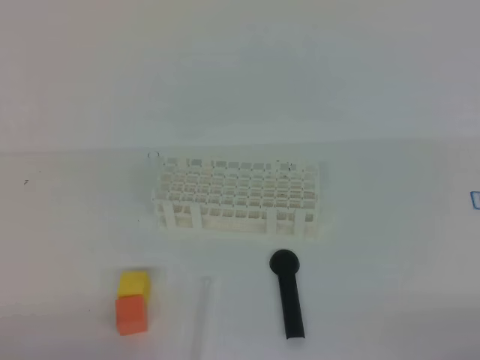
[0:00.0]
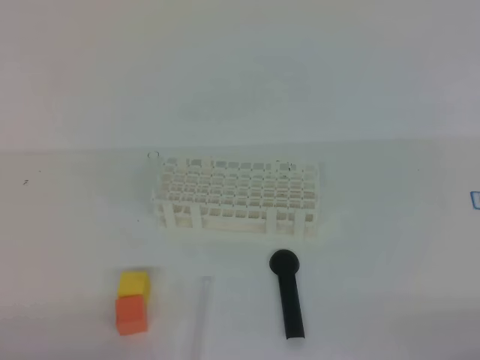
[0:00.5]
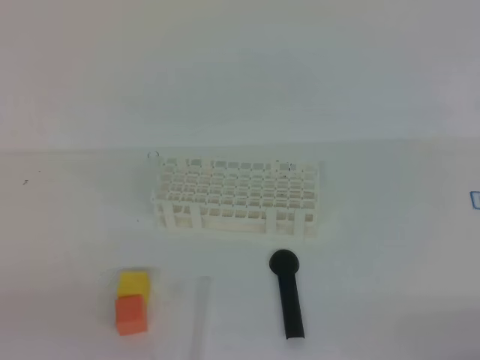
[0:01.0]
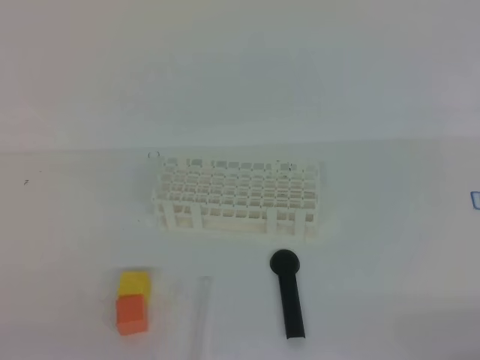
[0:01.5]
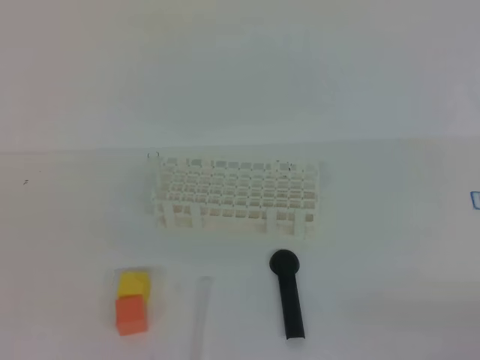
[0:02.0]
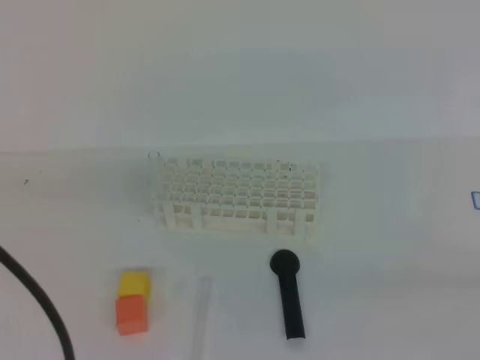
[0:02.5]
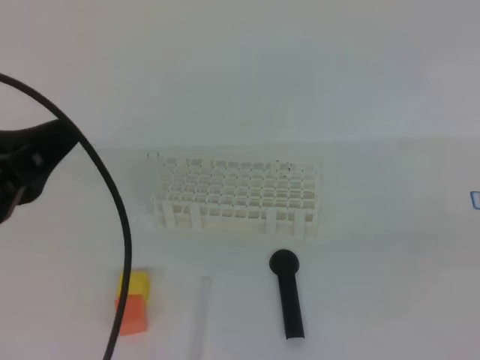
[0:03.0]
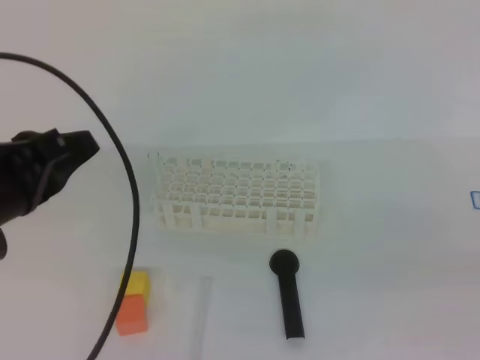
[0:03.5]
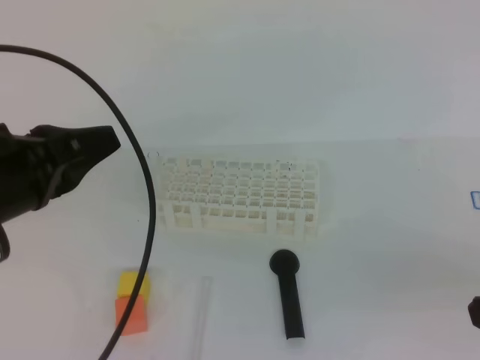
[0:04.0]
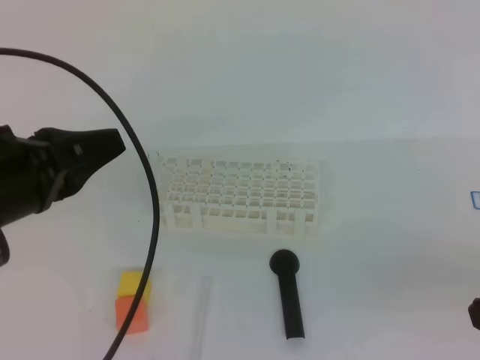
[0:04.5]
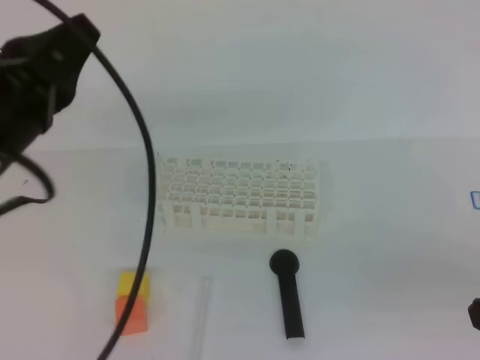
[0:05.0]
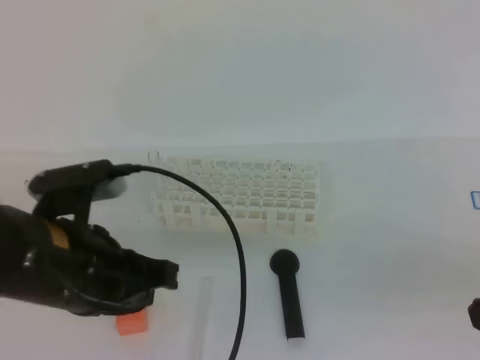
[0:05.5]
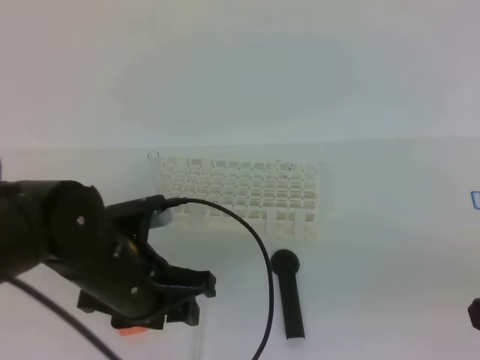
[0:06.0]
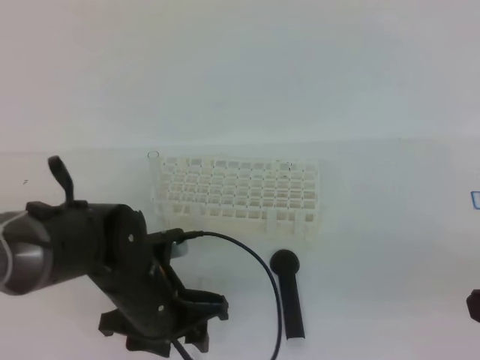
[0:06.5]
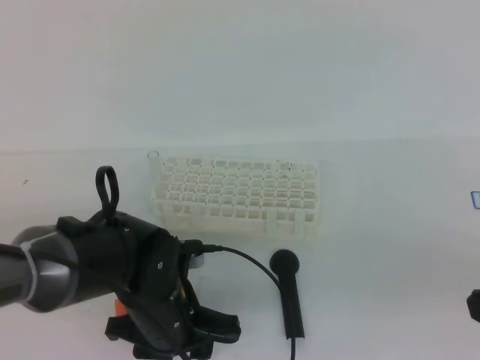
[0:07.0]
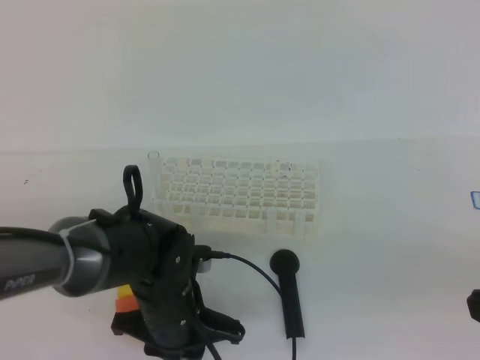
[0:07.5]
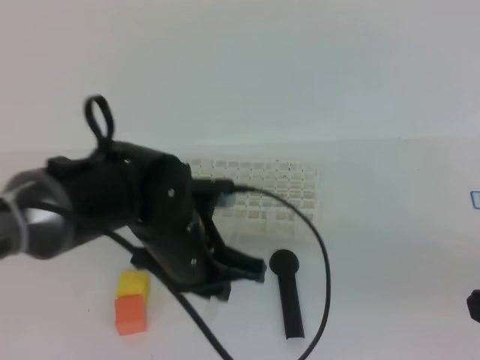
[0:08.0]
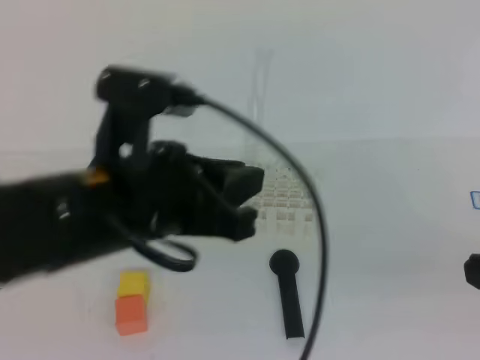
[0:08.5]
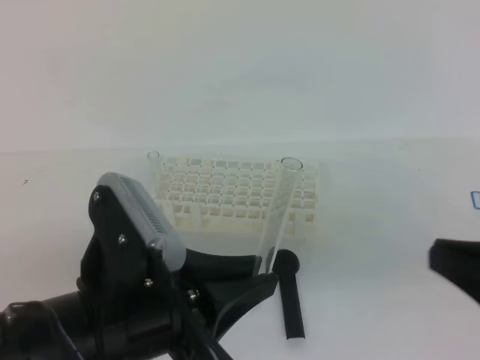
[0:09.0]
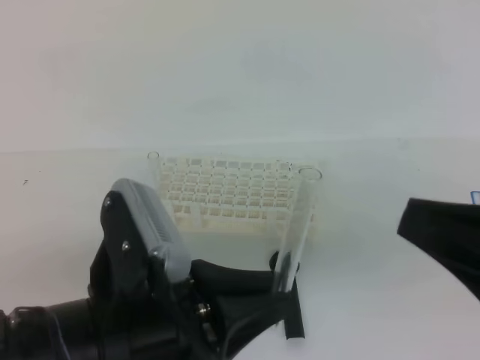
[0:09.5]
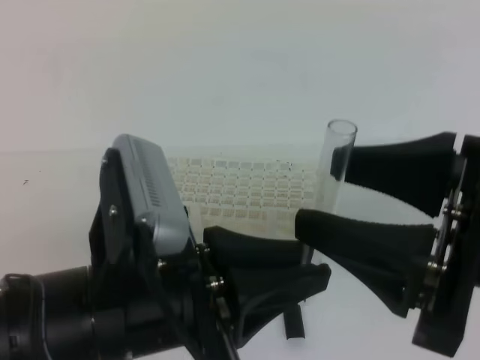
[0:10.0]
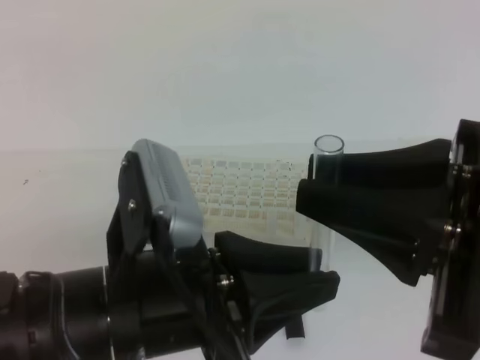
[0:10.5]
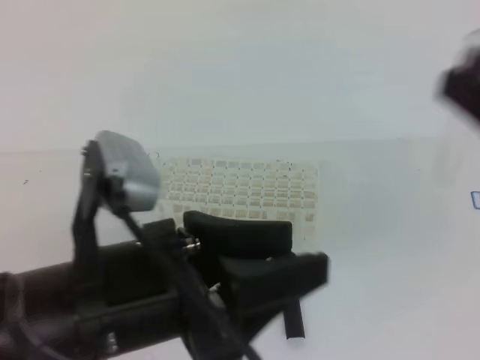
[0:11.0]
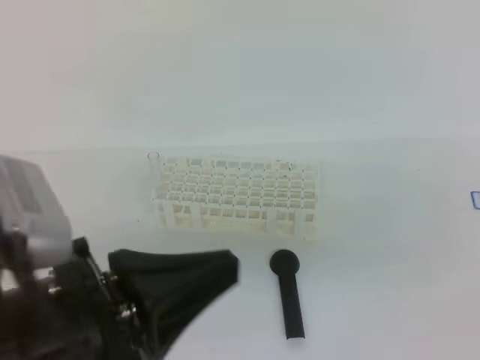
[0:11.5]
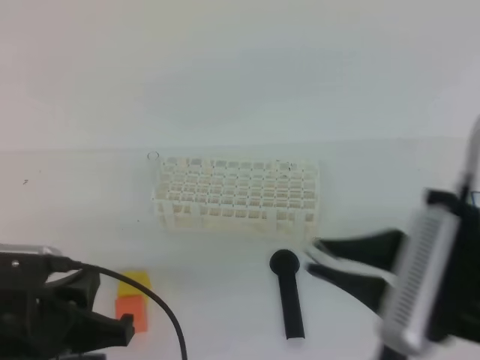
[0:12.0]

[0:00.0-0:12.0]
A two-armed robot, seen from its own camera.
0:02.0 to 0:04.0: The left gripper travels forward by approximately 15 cm, while the right gripper is displaced upward and to the left by some 15 cm.
0:04.0 to 0:06.0: The left gripper goes roughly 15 cm downward and to the right, and opens.
0:06.0 to 0:08.0: The left gripper shifts about 5 cm to the right, travels downward and back again, some 10 cm each way, and closes.
0:08.0 to 0:10.0: The left gripper moves backward and upward, roughly 15 cm, while the right gripper moves to the left and upward, approximately 10 cm, and opens its fingers.
0:10.0 to 0:12.0: The left gripper is displaced to the left and downward by some 10 cm, and opens, then closes again. Meanwhile the right gripper heads downward, covering roughly 5 cm, and closes up.

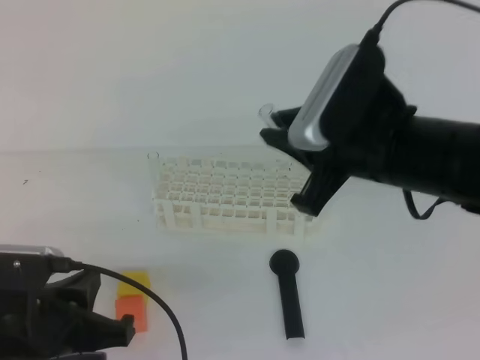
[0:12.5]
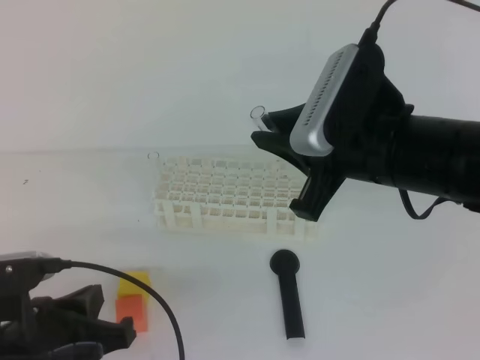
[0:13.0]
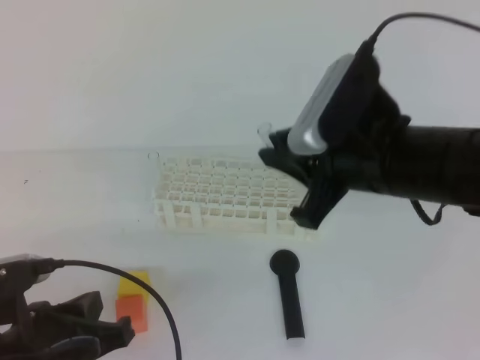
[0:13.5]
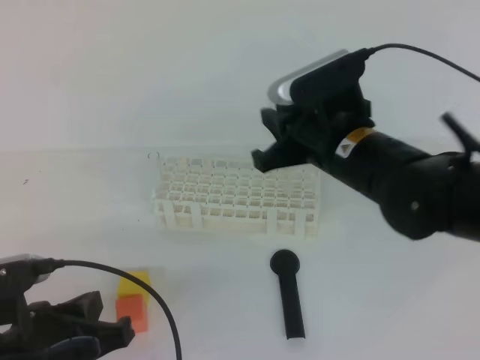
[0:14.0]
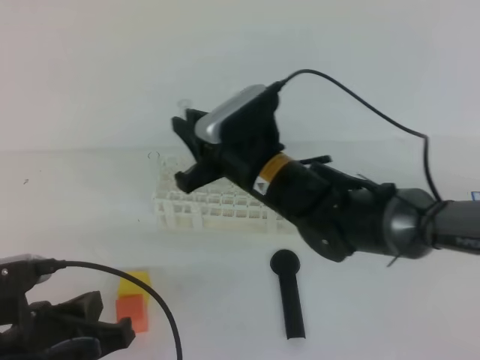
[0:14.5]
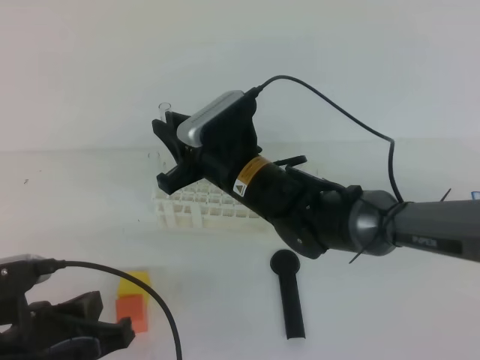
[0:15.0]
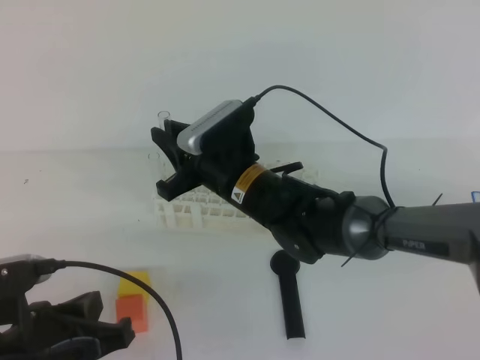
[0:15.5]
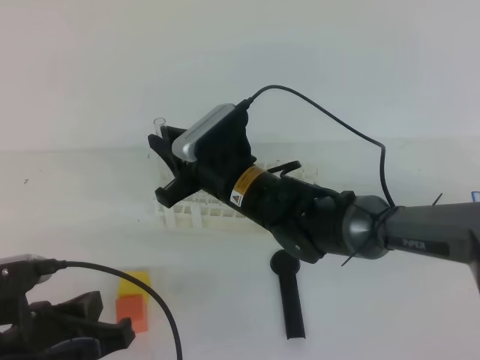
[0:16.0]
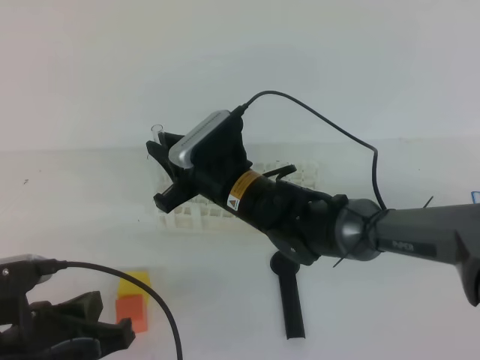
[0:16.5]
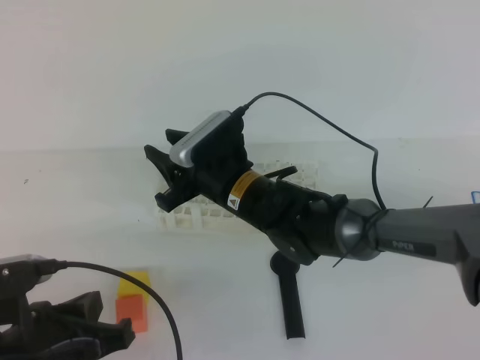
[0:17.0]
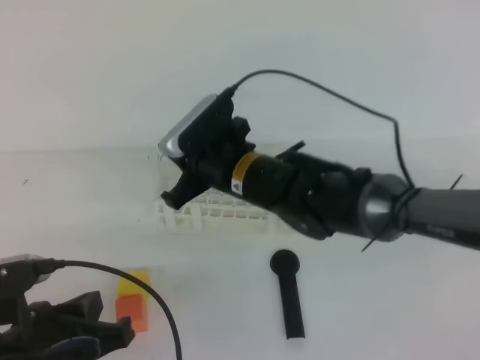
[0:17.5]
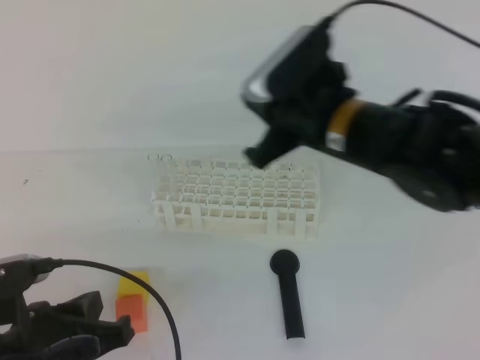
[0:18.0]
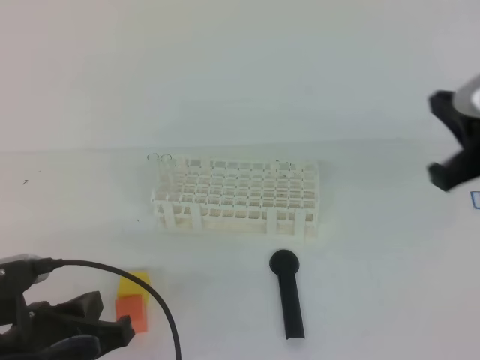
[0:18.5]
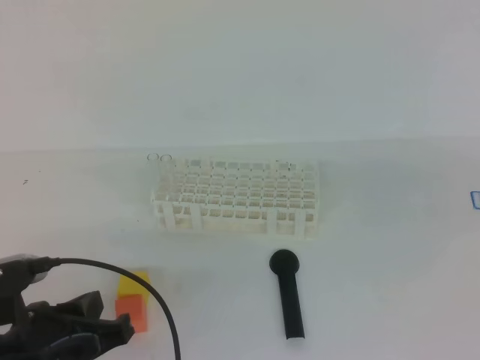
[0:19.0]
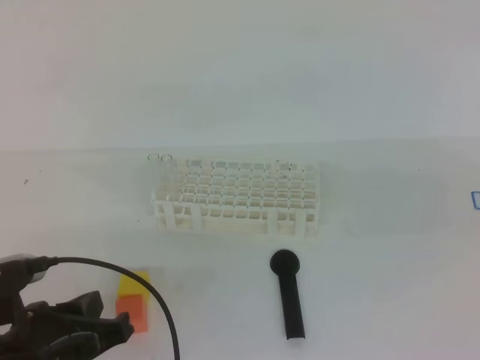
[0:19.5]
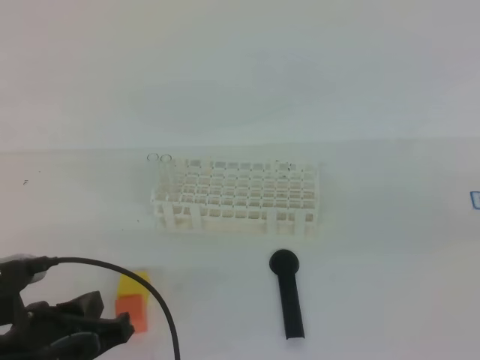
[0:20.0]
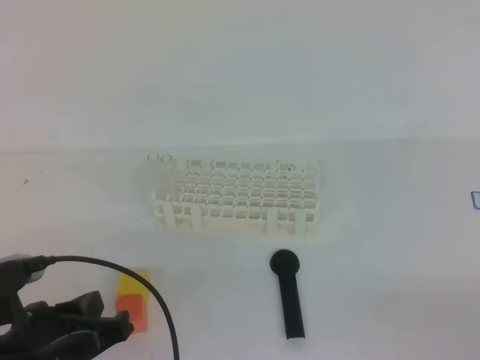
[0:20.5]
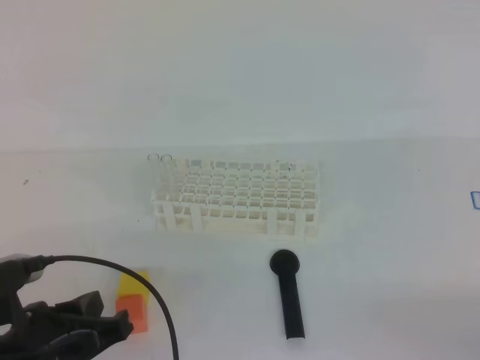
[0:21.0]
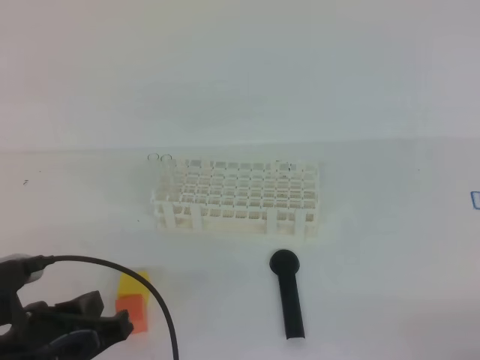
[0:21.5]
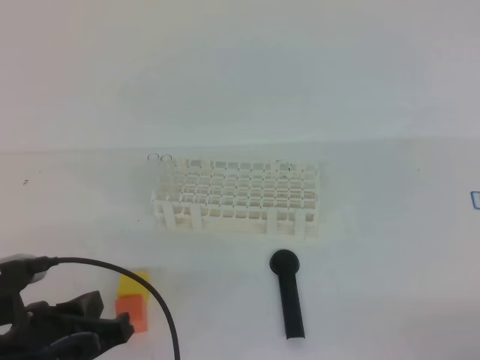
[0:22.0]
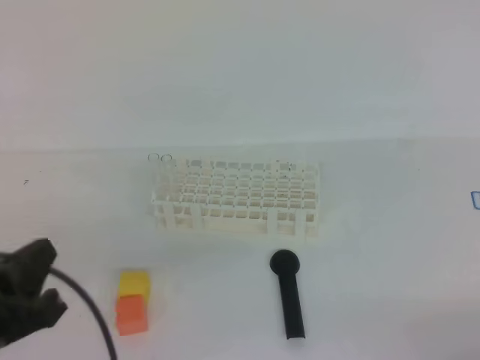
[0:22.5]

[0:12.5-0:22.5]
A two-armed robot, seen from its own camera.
0:12.5 to 0:14.5: The right gripper moves to the left, forward and downward, some 15 cm.
0:14.5 to 0:16.5: The right gripper moves roughly 5 cm.
0:16.5 to 0:18.5: The right gripper heads to the right, upward and backward, covering roughly 30 cm, and closes its fingers.
0:18.5 to 0:20.5: The right gripper is displaced backward, to the right and downward by roughly 25 cm.
0:20.5 to 0:22.5: The left gripper moves some 5 cm.

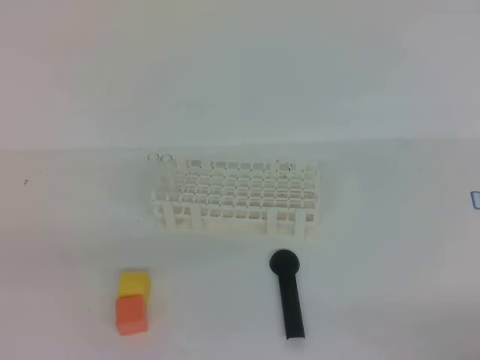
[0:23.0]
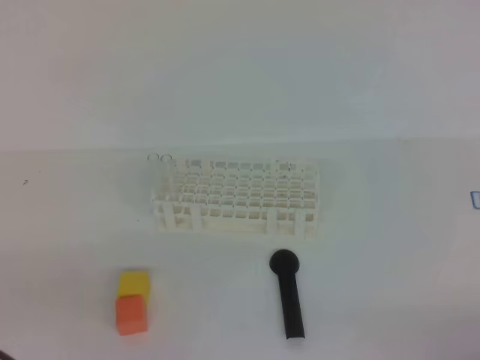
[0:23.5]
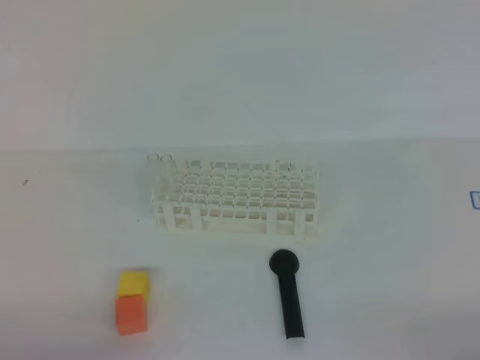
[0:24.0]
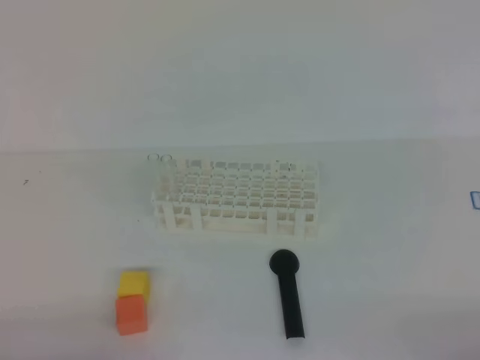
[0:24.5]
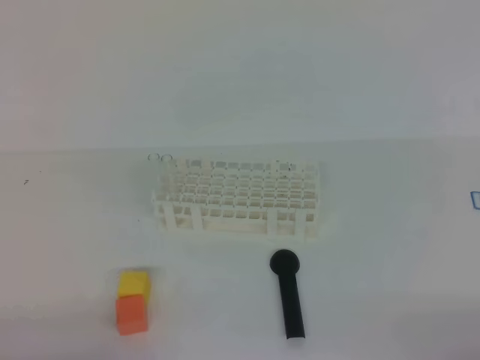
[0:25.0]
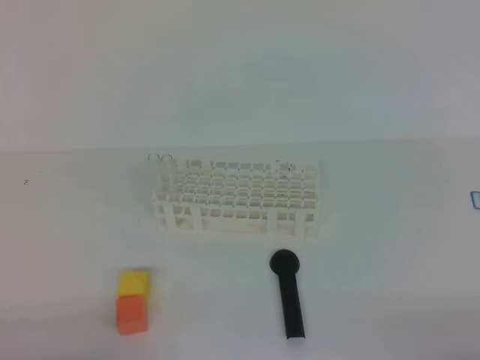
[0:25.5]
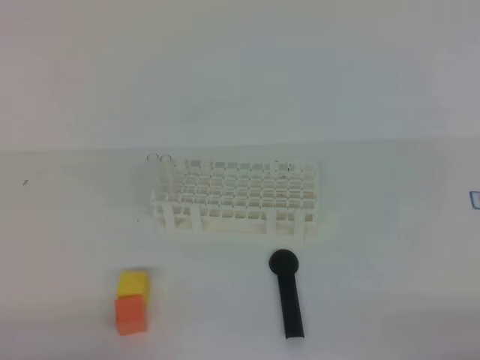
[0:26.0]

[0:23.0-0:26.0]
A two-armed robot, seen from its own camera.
0:23.0 to 0:24.5: The left gripper shifts roughly 10 cm downward.
